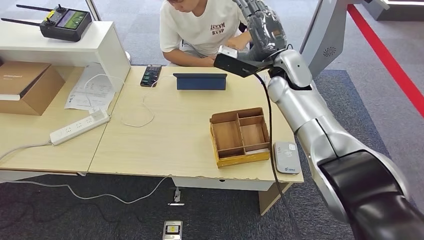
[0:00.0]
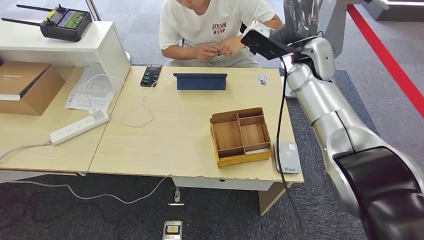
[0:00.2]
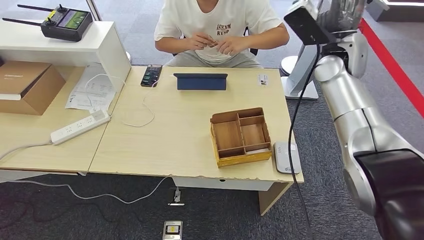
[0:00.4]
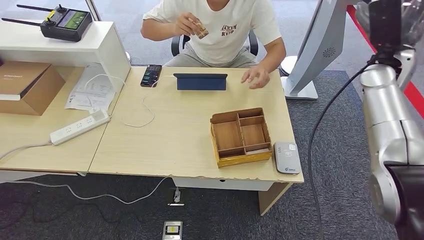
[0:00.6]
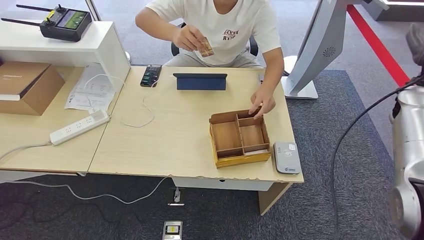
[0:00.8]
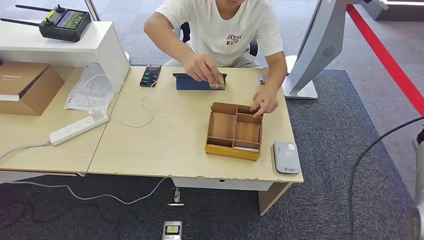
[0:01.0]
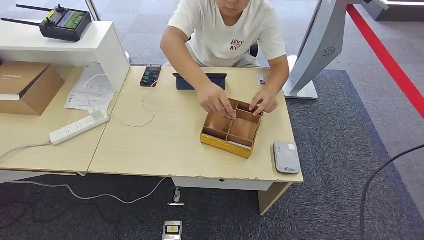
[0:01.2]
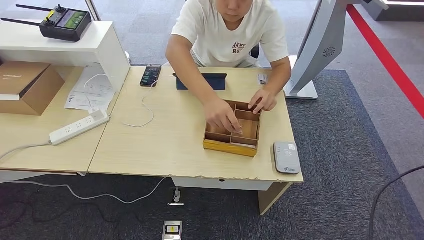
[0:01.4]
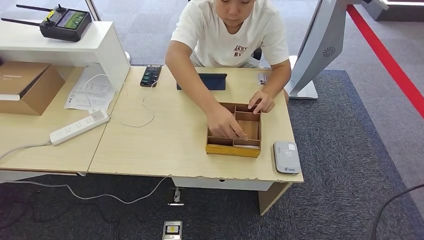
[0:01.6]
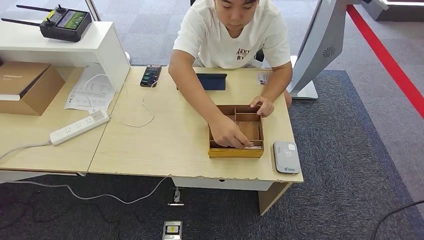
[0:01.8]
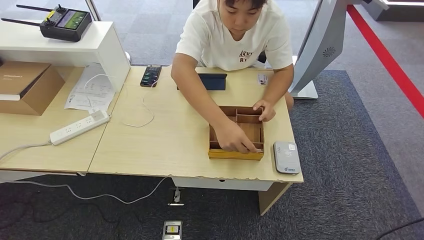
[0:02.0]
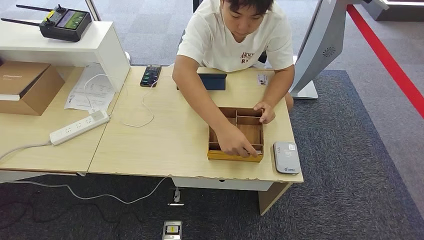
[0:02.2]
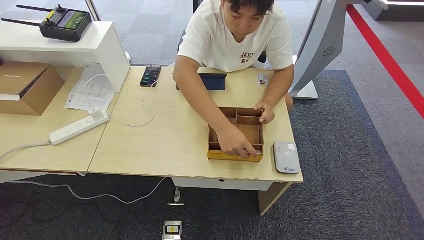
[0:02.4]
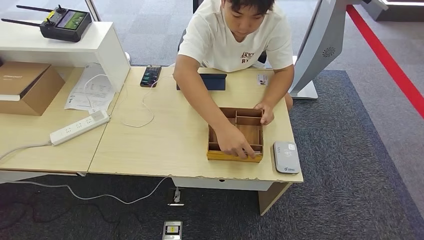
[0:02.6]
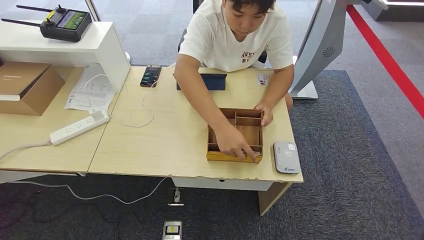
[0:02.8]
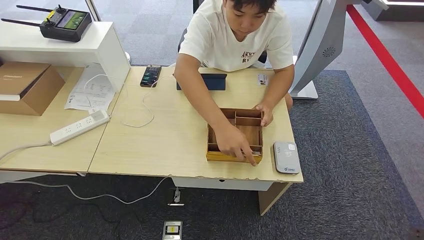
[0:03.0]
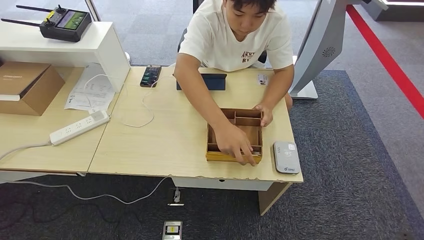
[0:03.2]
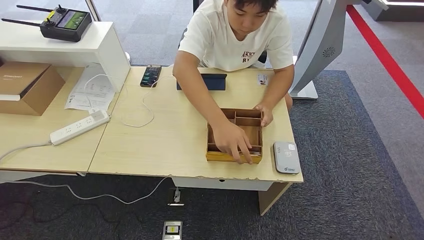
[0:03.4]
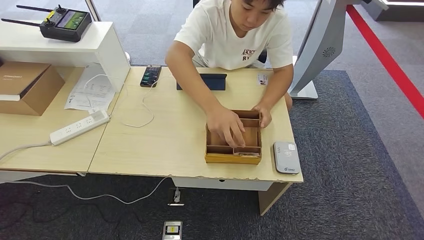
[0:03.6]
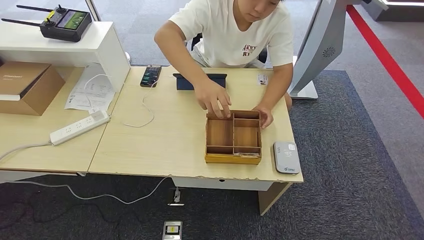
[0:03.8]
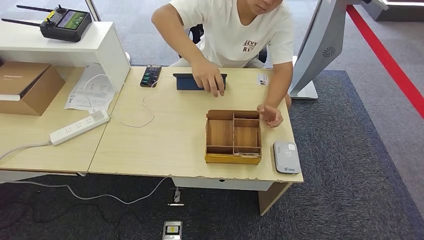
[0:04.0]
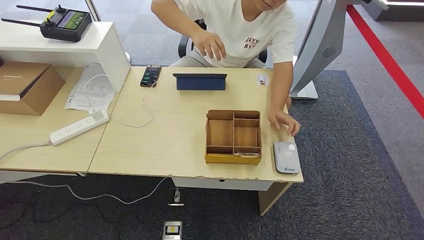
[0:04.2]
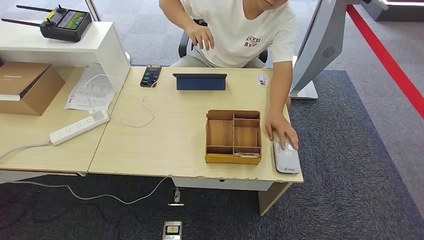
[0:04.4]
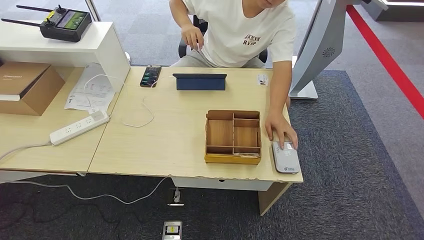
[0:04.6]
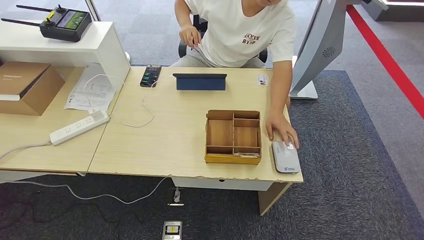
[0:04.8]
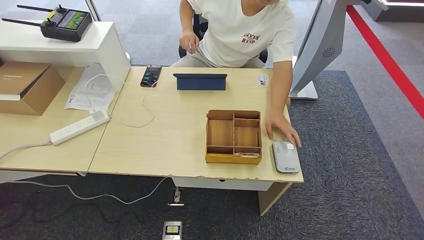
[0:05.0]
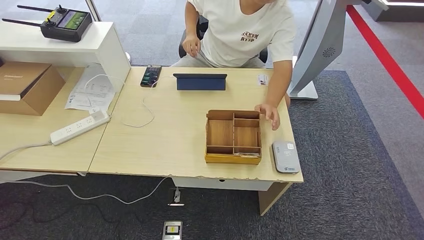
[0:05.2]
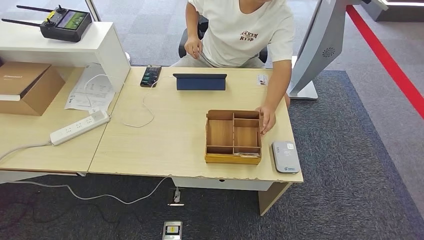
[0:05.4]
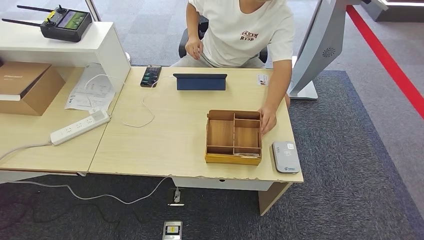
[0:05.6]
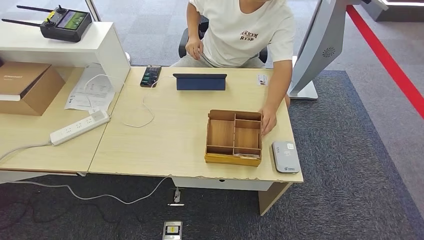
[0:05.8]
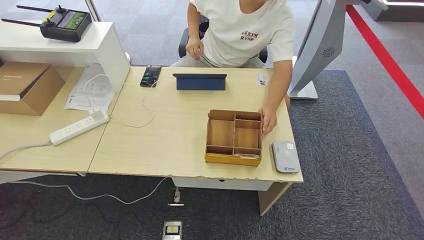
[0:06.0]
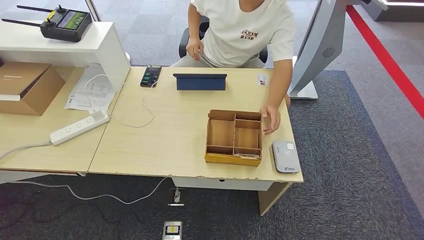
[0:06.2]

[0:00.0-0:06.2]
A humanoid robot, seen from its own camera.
Step, 0:00.0 to 0:06.2: Hand the room key to the person.
0:01.6 to 0:03.2: The right hand travels downward, backward and to the left by about 30 cm.
0:03.2 to 0:04.6: The right hand goes about 5 cm to the left.
0:04.6 to 0:06.2: The left hand moves about 5 cm to the left and comes back.
